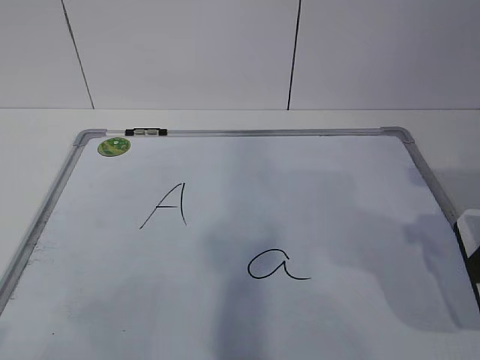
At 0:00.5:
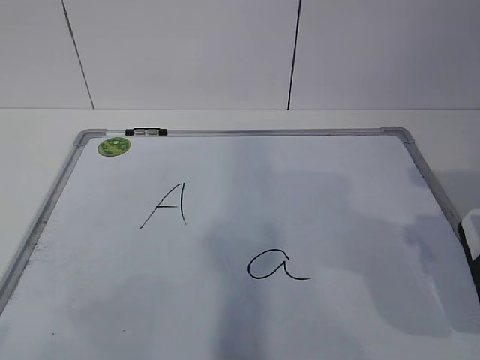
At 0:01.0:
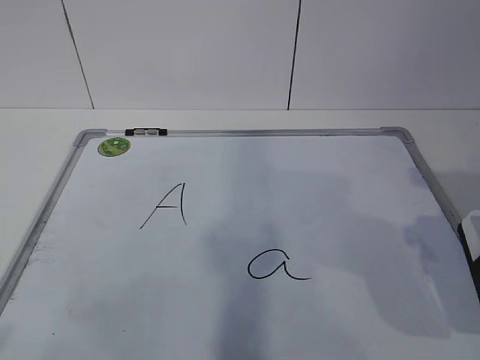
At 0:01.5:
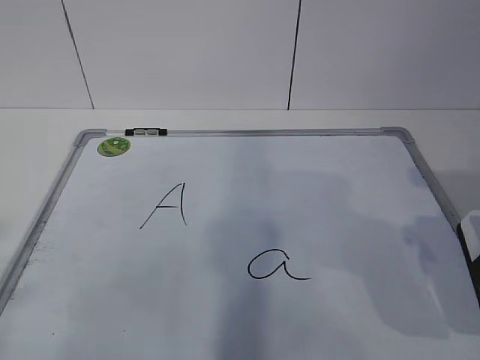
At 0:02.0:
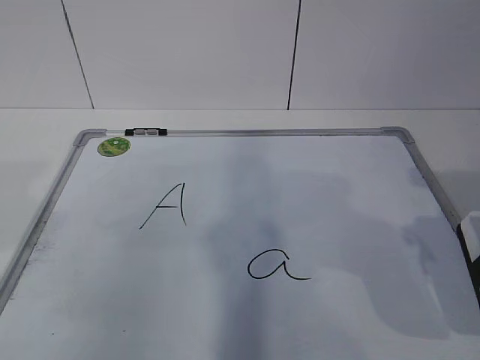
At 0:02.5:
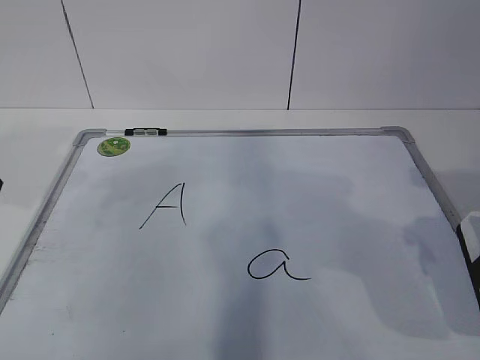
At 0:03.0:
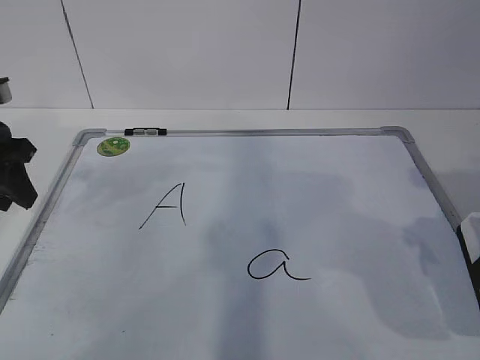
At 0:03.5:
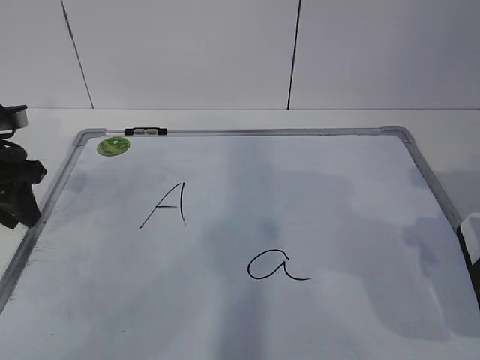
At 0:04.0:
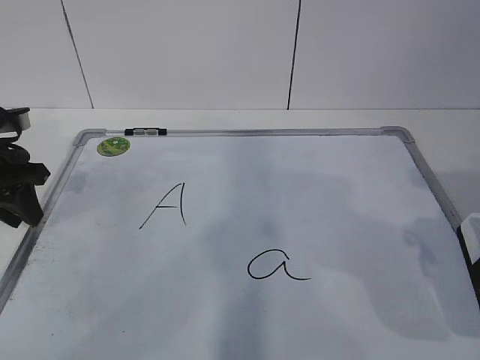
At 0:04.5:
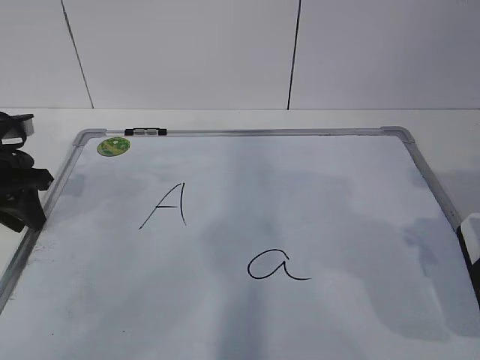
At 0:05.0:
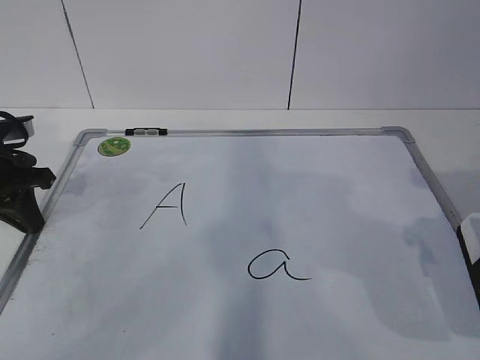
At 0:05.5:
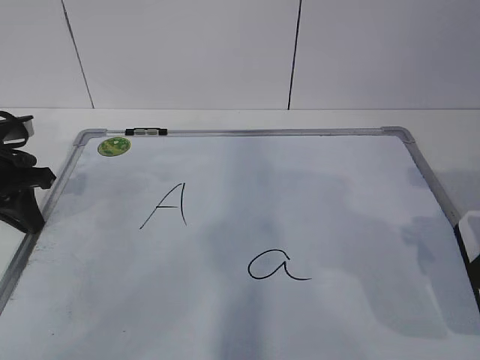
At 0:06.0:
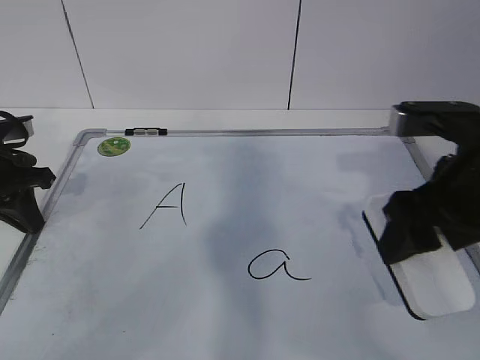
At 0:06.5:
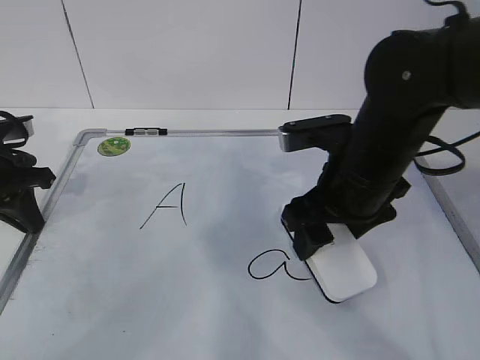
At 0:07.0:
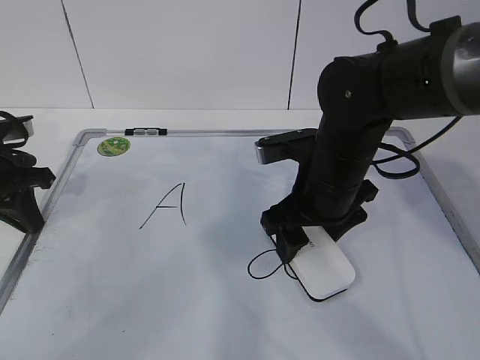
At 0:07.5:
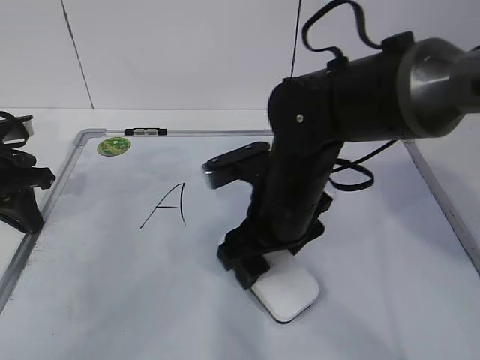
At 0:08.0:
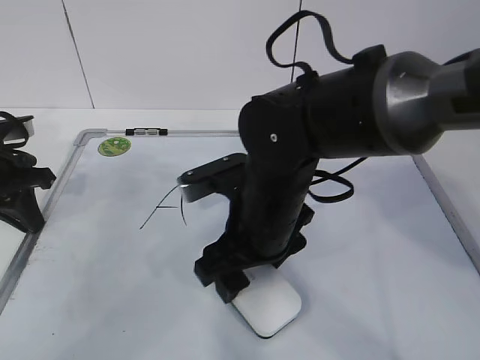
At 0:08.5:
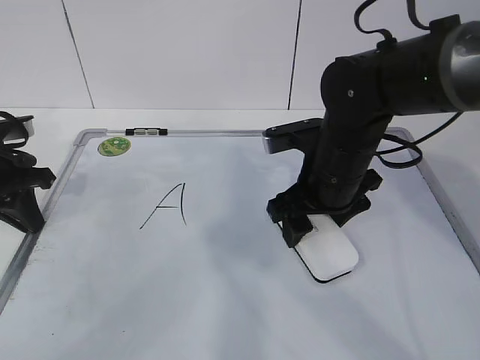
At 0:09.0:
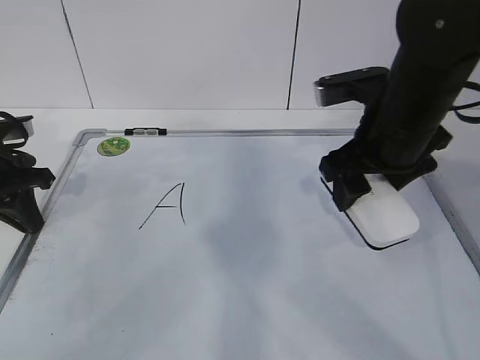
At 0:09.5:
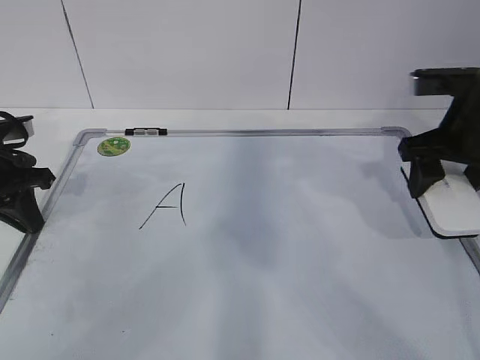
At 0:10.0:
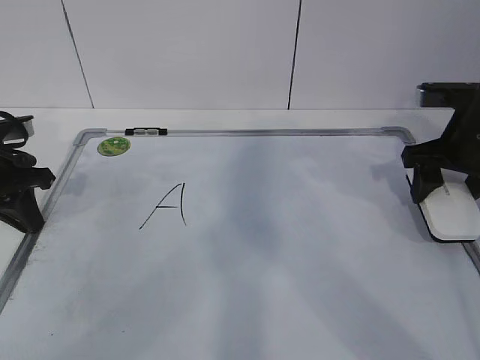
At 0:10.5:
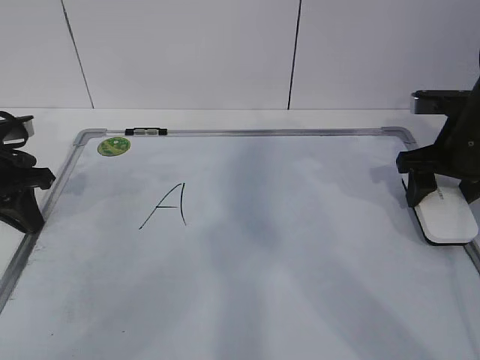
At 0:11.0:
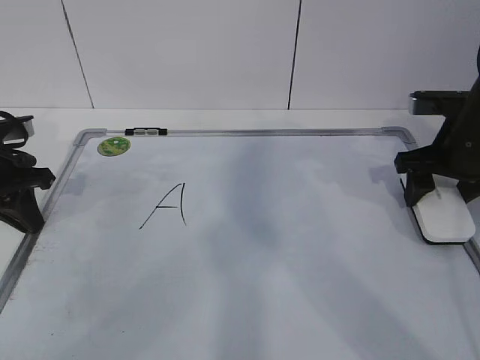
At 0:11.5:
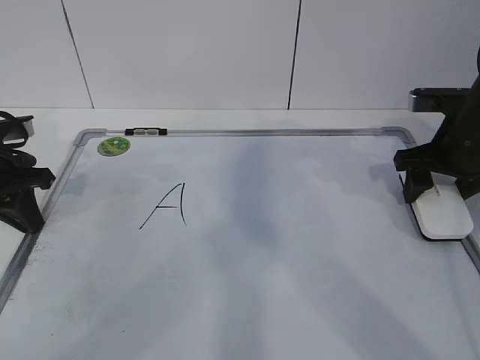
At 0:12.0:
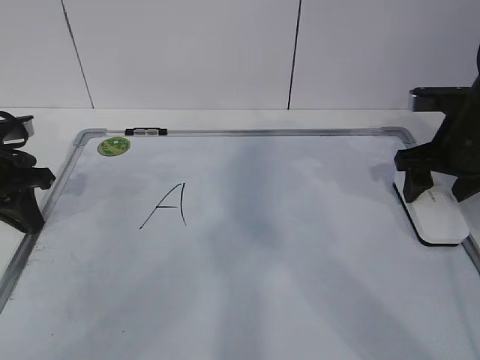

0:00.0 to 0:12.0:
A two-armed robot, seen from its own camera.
Task of the whole recording: pick up the eraser on the blackboard and erase the letter "a".
Step, 0:05.5 to 0:07.5: Put down the eraser with your right hand.
0:02.0 to 0:04.0: The left gripper goes approximately 25 cm forward and downward.
0:04.0 to 0:06.0: The left gripper closes its fingers. The right gripper goes about 10 cm to the left and forward.
0:06.0 to 0:08.0: The right gripper is displaced to the left and downward by approximately 20 cm.
0:08.0 to 0:10.0: The right gripper goes about 25 cm to the right.
0:10.0 to 0:12.0: The grippers make only small movements.

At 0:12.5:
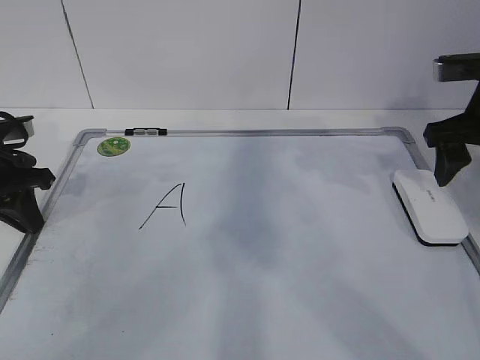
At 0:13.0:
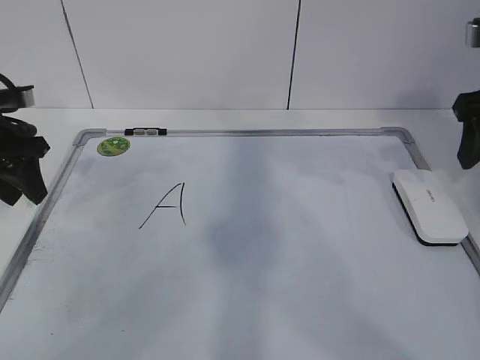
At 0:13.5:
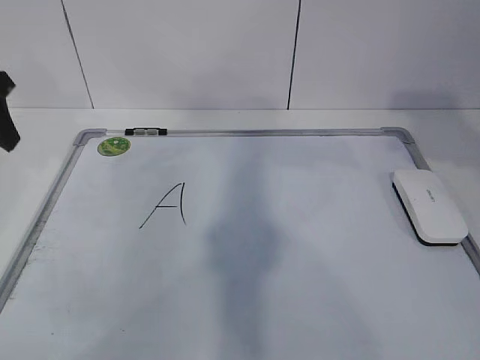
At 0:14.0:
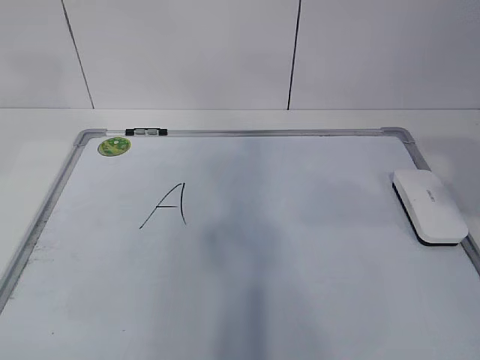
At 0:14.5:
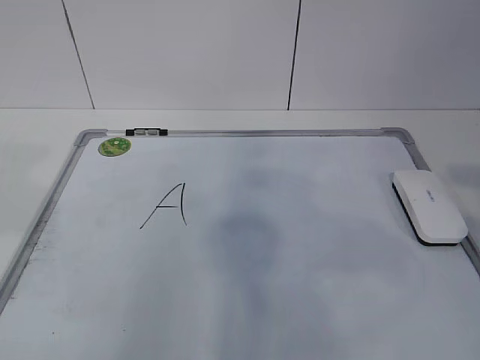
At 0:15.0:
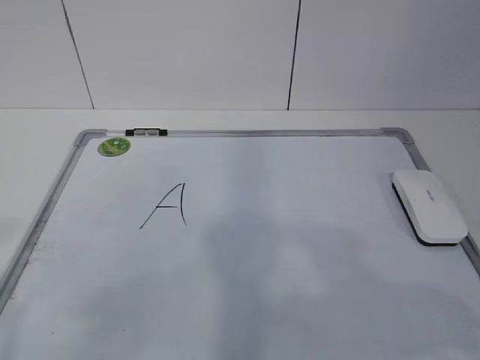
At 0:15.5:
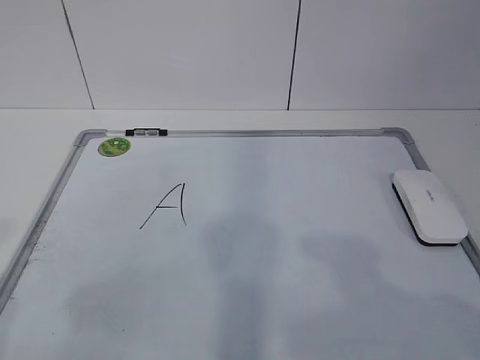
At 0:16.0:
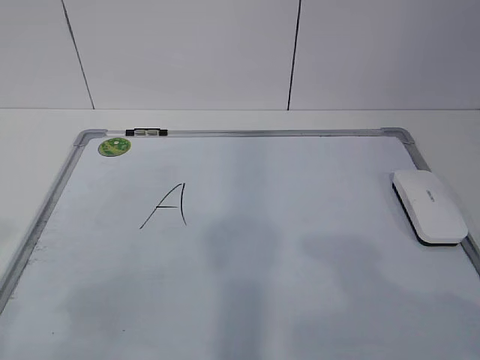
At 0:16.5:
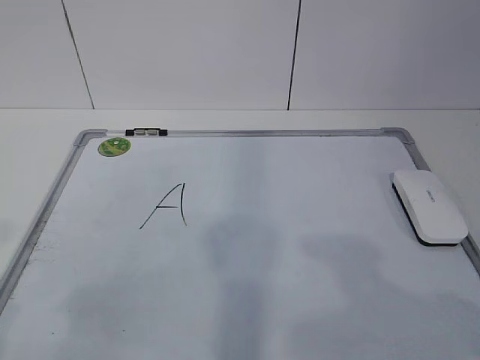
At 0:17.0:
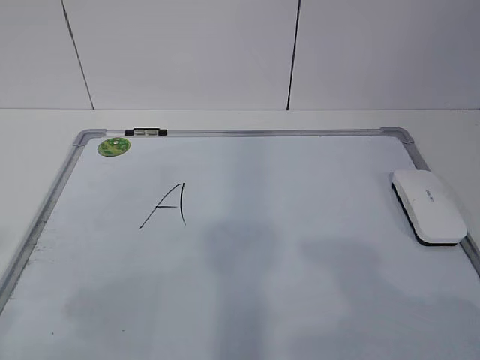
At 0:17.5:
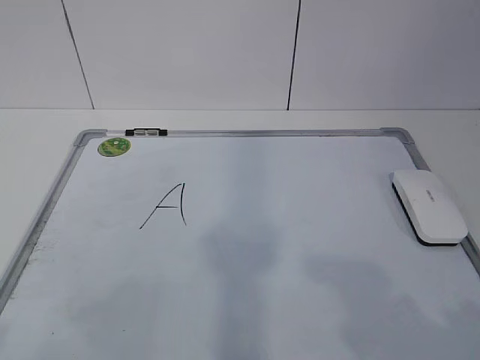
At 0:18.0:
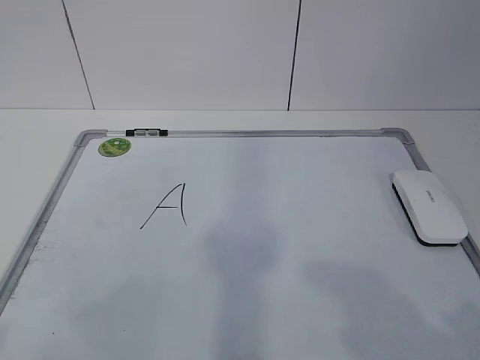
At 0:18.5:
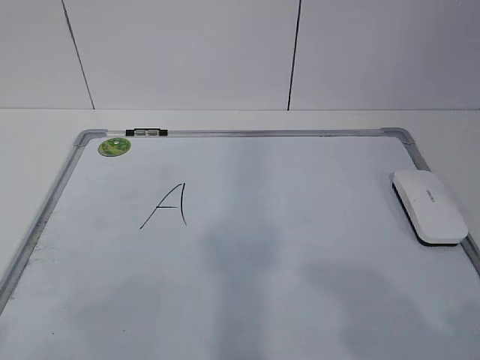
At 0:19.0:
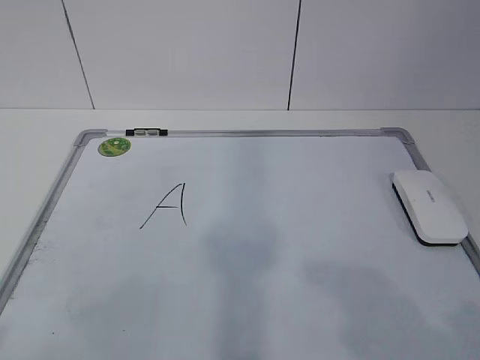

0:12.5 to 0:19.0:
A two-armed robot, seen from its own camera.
Task of the whole recording: pick up the eraser on the blackboard and erase the letter "a".
0:12.5 to 0:14.5: The right gripper is displaced backward by some 25 cm. The left gripper shifts roughly 35 cm backward and upward, and opens its fingers.
